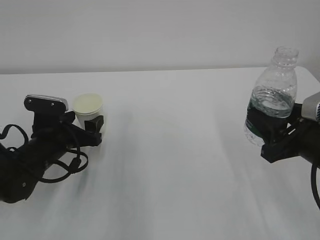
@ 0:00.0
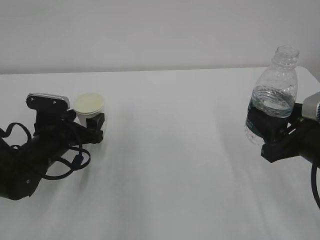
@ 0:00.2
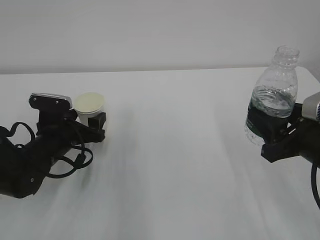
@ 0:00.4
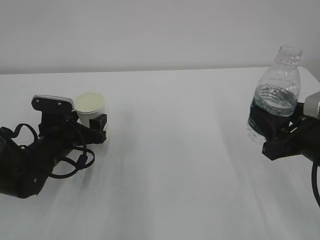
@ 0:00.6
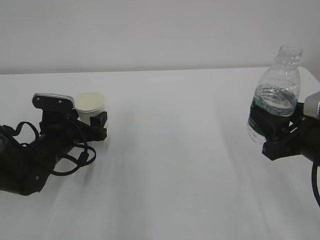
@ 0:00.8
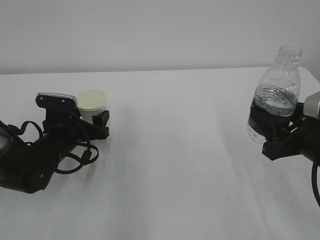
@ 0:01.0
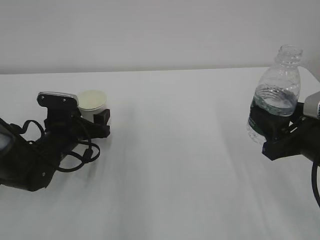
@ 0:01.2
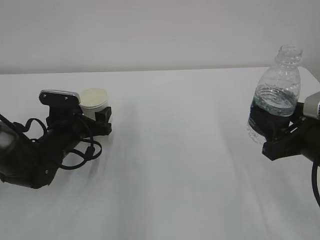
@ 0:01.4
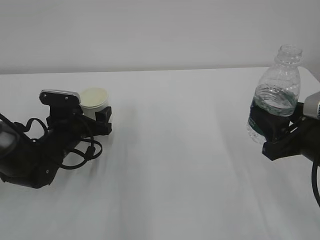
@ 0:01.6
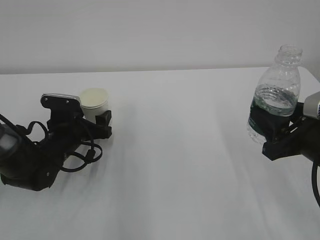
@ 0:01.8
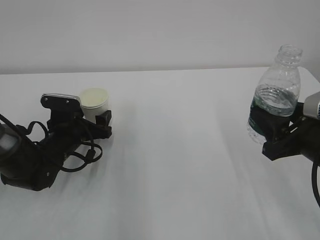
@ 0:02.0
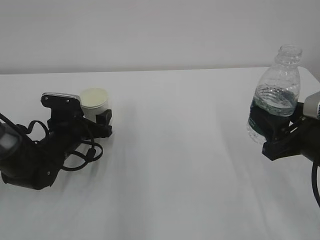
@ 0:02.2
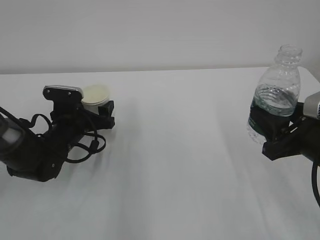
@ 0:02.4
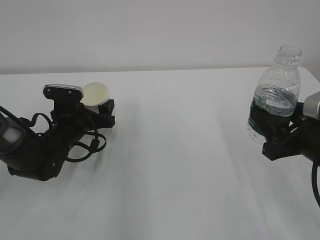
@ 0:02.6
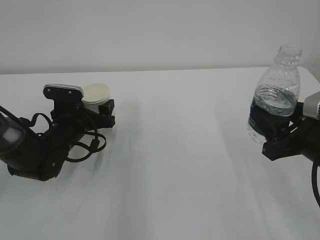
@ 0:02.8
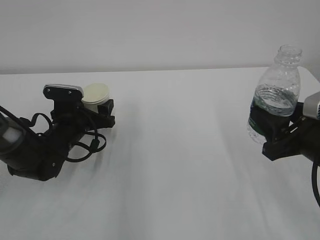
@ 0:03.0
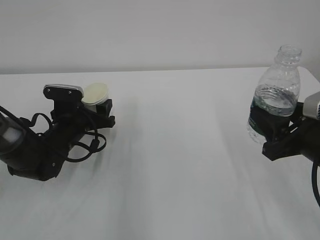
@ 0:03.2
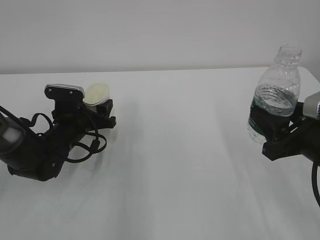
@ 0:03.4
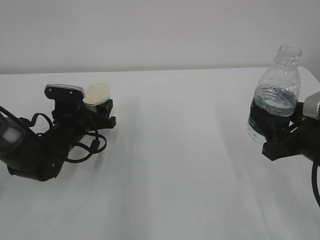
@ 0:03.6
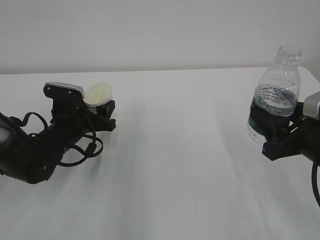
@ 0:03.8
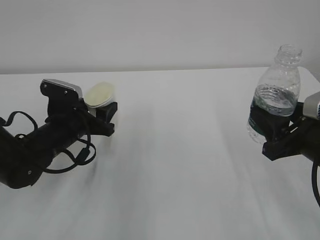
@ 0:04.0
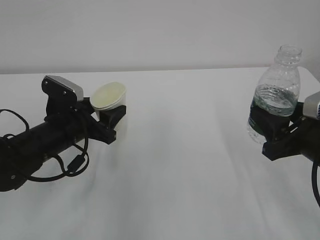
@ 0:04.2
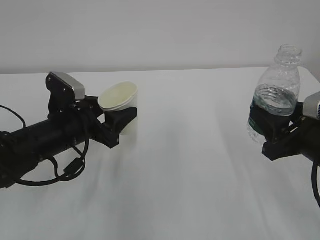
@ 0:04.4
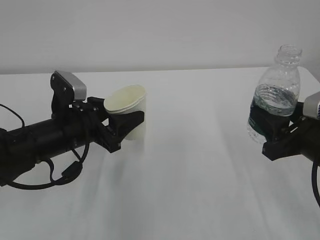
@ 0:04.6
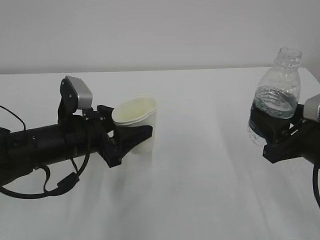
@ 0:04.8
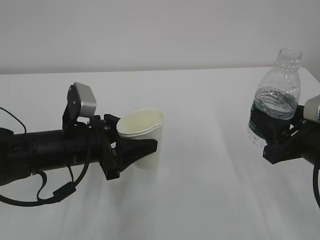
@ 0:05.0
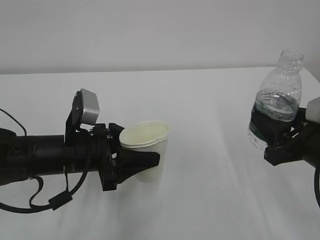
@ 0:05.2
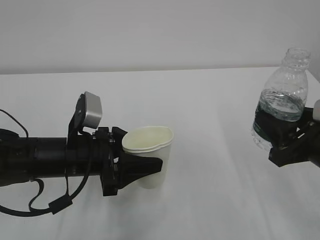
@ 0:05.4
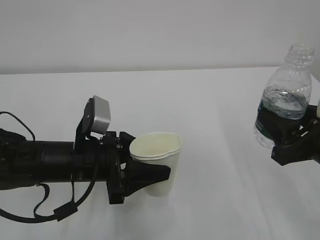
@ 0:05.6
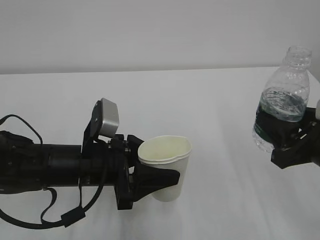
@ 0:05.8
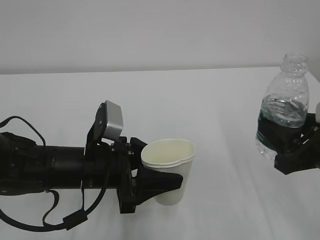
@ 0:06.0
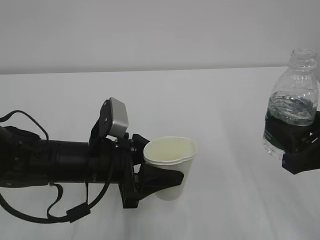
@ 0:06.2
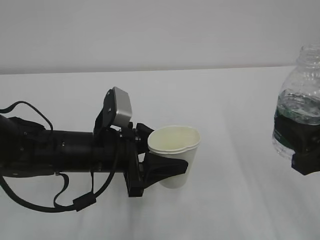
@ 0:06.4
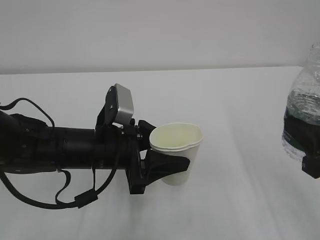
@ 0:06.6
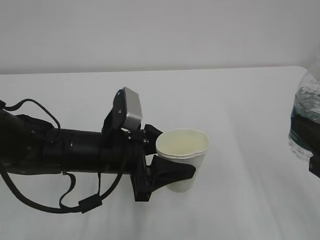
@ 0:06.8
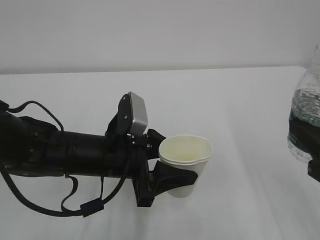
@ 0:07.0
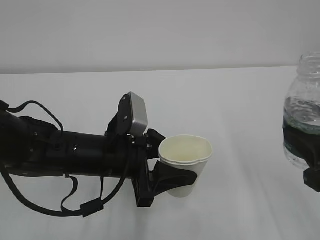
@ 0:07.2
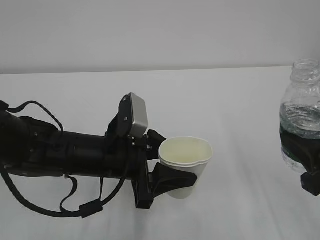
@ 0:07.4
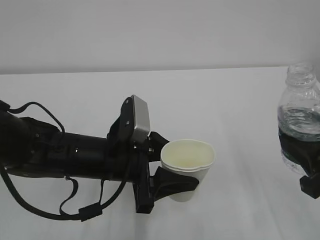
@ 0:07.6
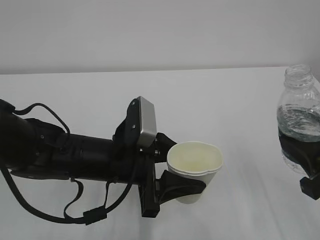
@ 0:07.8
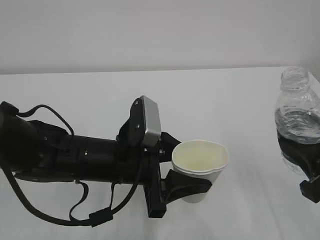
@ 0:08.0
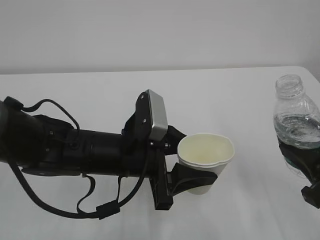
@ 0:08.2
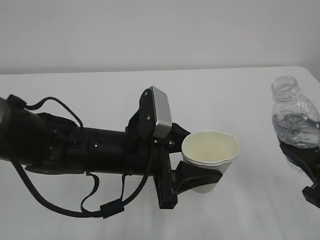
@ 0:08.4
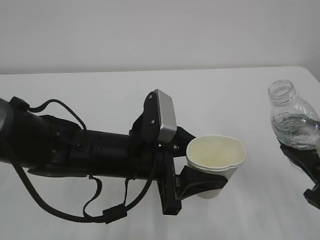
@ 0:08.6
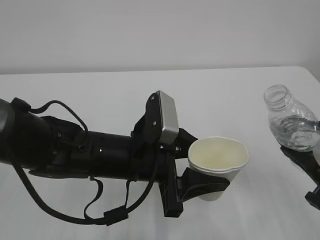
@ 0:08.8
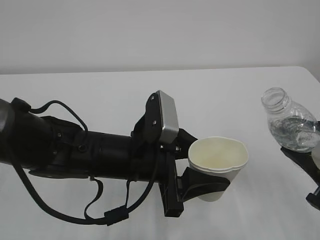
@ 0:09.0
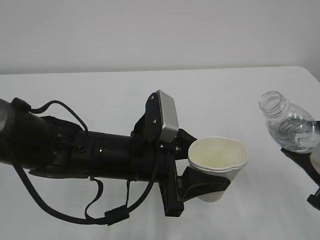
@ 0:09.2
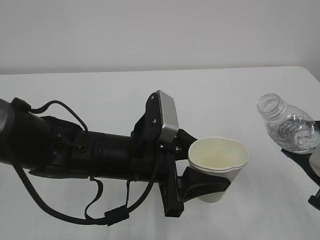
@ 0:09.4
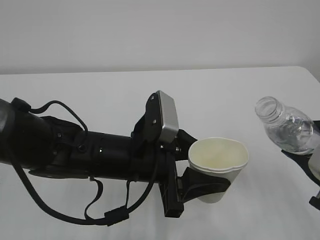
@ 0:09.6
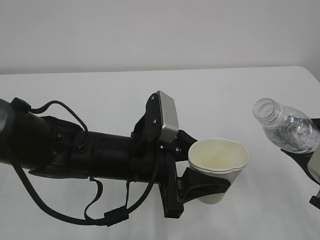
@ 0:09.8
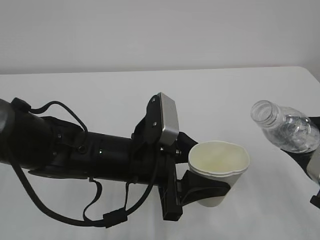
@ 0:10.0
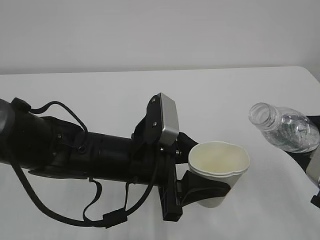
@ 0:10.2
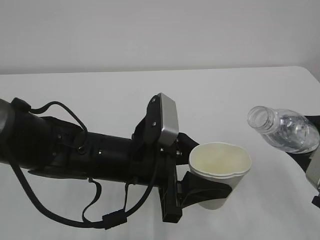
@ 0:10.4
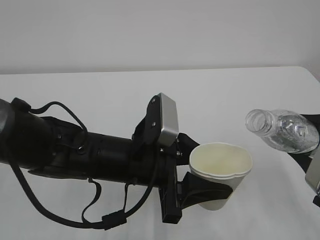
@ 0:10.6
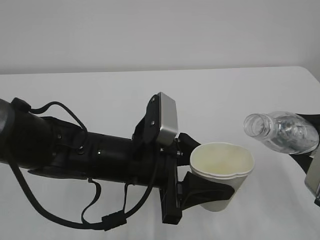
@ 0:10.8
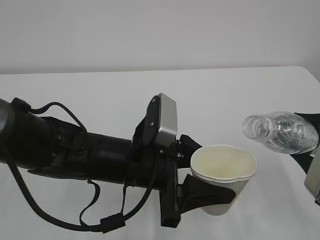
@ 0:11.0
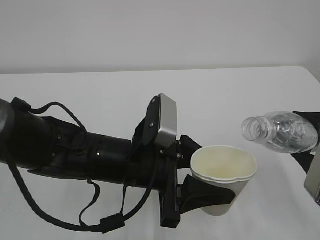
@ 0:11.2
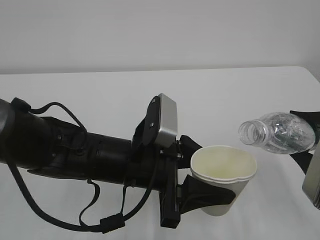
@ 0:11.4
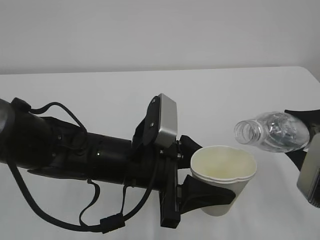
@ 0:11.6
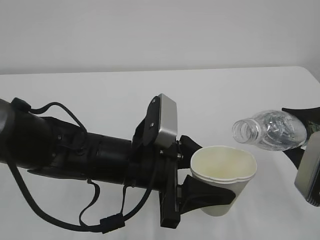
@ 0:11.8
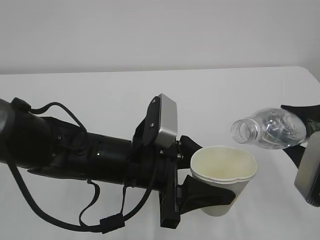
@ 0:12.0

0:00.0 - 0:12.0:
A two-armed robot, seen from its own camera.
0:00.0 - 0:03.0: The grippers stay close to where they were, moving slightly.
0:03.0 - 0:04.4: The left gripper goes approximately 10 cm backward and upward, and closes up.
0:04.4 - 0:06.0: The left gripper travels backward and to the right by about 10 cm.
0:06.0 - 0:07.6: The grippers make only small movements.
0:09.0 - 0:10.4: The grippers stay close to where they were, moving slightly.
0:10.4 - 0:12.0: There are only small adjustments of the grippers.

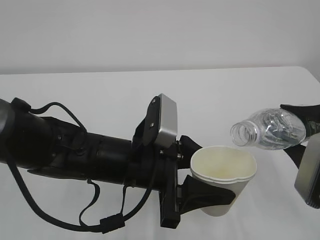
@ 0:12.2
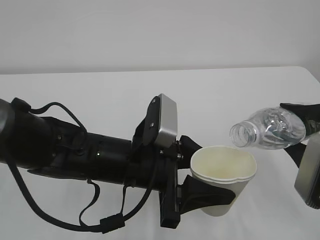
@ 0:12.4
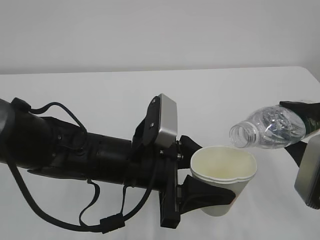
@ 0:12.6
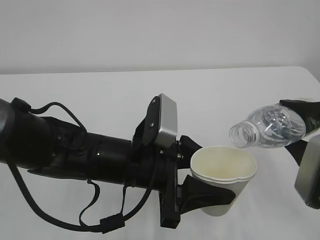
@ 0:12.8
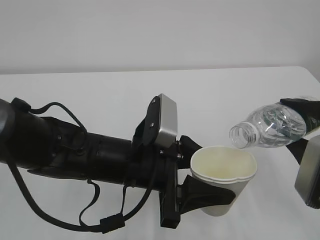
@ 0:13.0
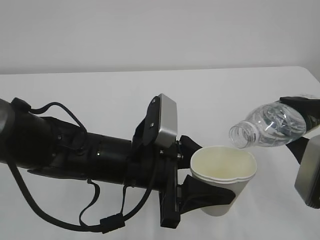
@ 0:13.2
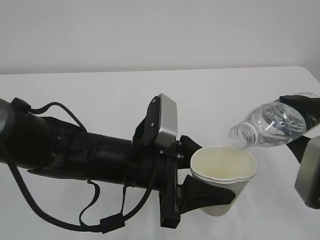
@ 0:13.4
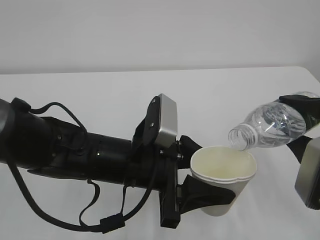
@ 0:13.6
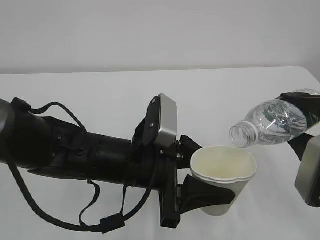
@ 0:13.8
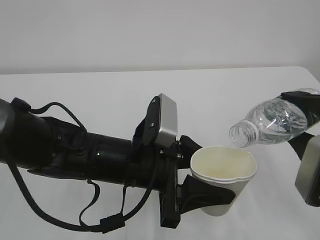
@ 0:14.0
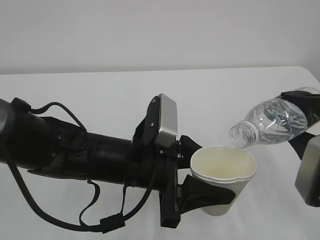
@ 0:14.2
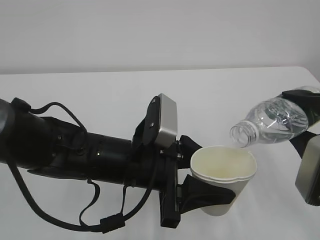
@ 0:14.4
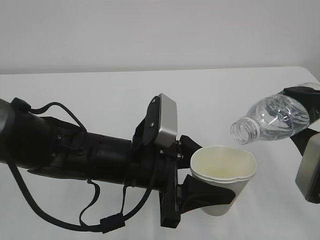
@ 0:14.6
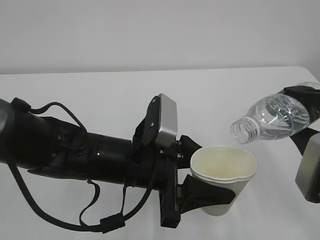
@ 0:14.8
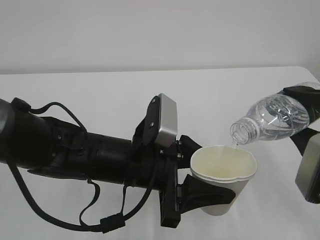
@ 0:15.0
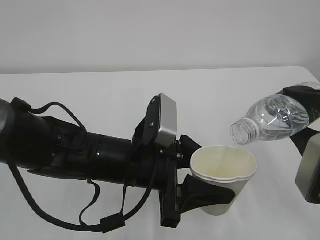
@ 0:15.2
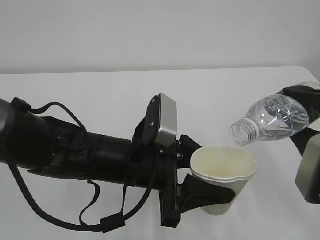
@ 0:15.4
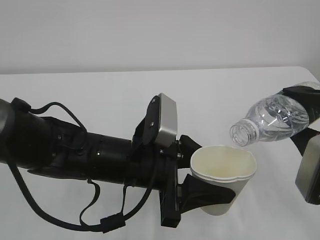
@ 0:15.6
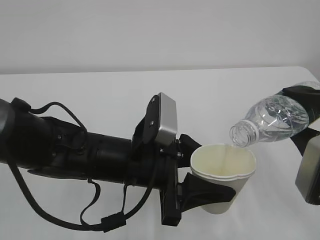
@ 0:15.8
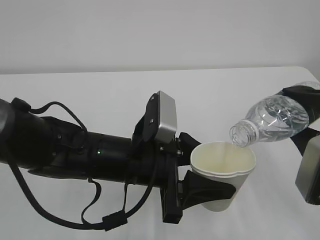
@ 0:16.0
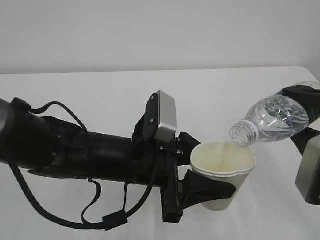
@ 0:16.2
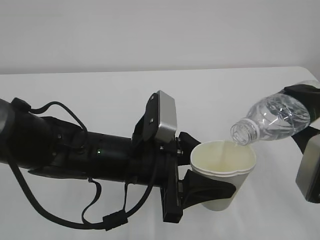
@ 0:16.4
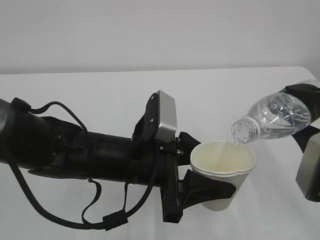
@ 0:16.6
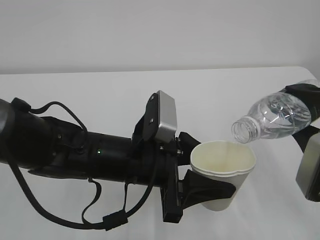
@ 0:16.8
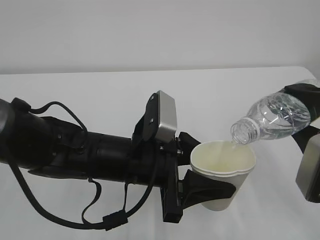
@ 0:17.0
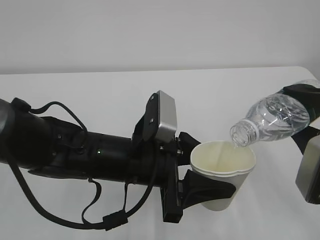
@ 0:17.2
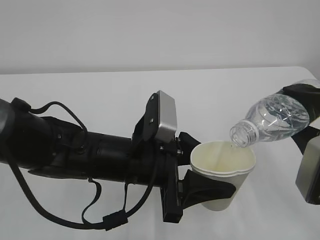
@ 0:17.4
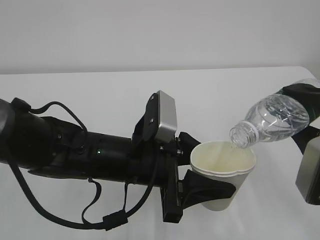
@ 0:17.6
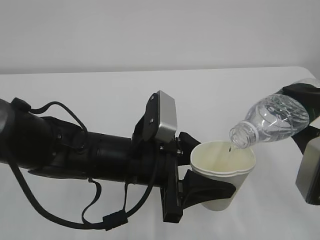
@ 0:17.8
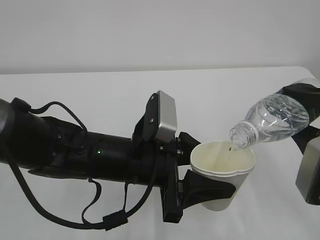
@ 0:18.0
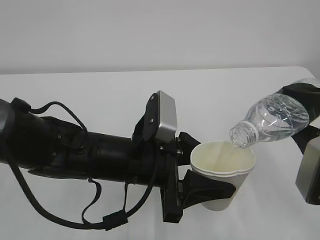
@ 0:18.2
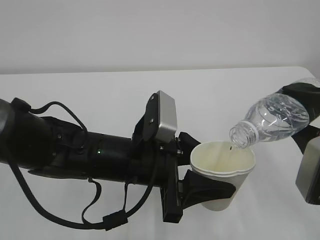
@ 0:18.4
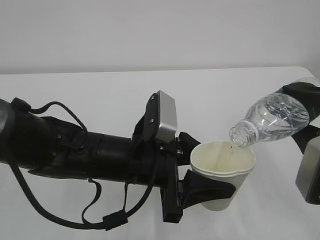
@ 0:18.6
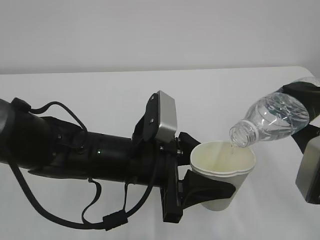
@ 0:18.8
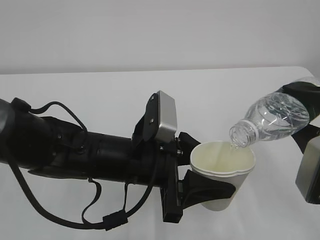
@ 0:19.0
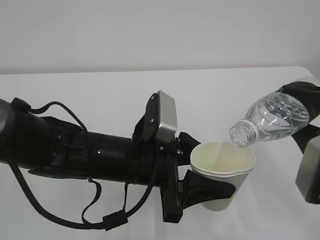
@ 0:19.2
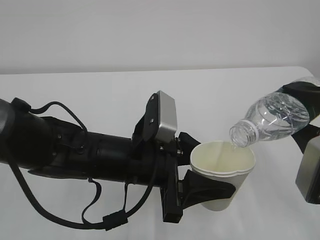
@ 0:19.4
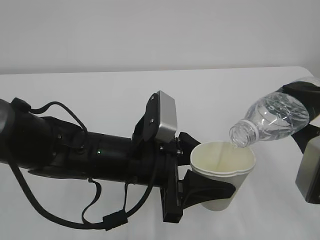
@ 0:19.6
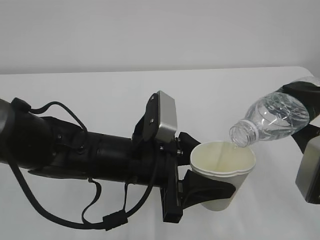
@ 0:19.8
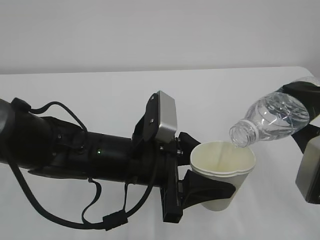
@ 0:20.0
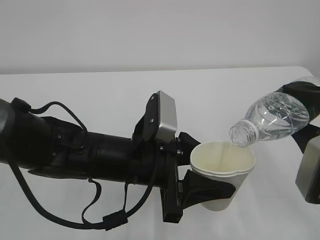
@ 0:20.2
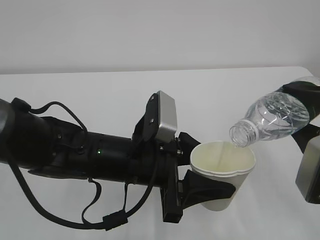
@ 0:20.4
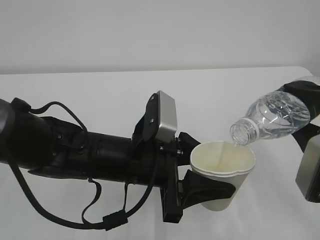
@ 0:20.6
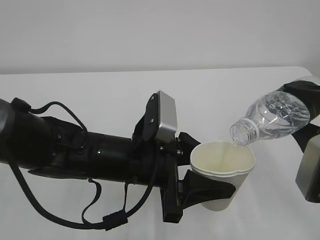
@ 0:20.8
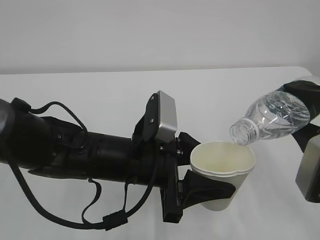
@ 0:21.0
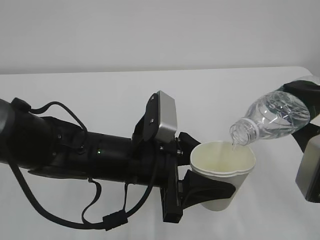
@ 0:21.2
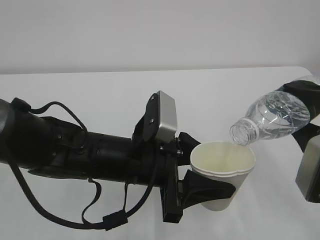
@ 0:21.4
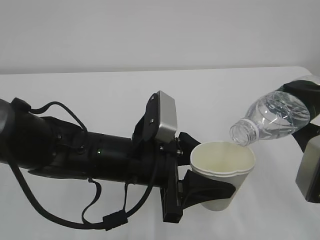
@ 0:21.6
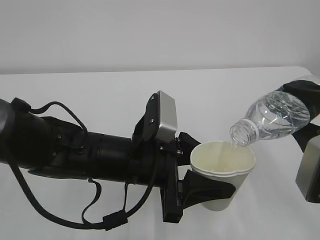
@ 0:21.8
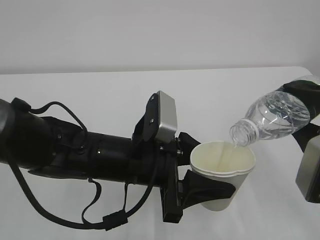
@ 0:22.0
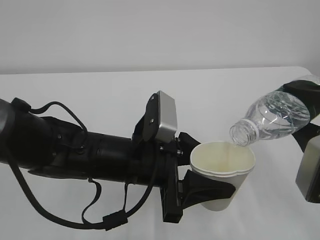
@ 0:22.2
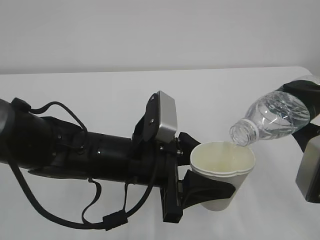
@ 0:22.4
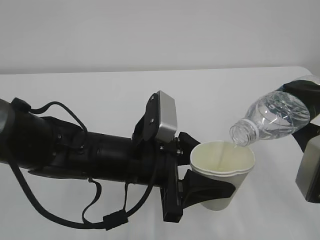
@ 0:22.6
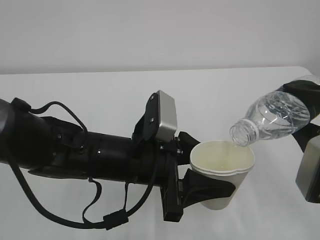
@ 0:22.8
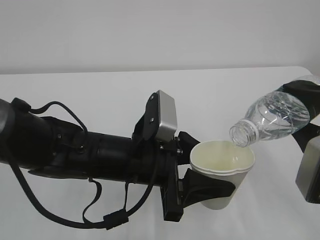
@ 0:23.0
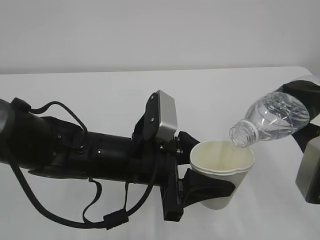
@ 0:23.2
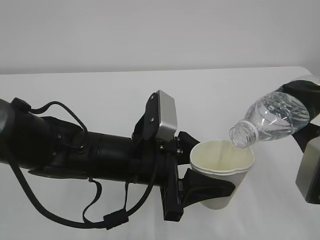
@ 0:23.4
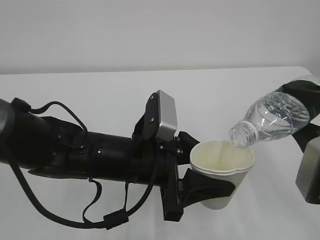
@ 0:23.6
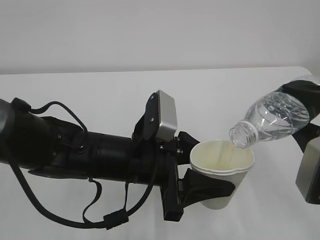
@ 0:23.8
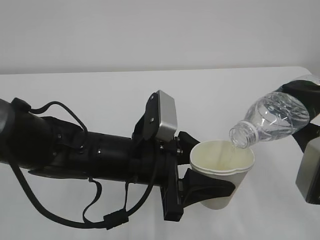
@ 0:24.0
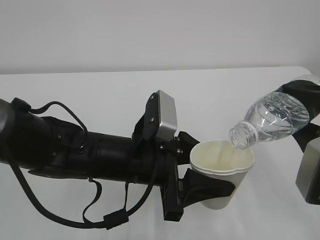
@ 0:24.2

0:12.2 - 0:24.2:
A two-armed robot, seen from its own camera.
0:12.2 - 0:13.8: The grippers move only a little.
0:13.8 - 0:15.2: The two grippers keep their place.
0:15.2 - 0:22.6: Both grippers stay put.
0:22.6 - 0:24.2: Both grippers stay about where they are.
